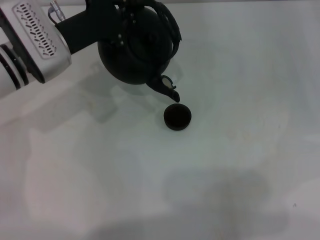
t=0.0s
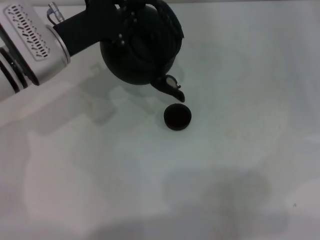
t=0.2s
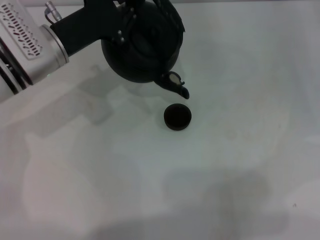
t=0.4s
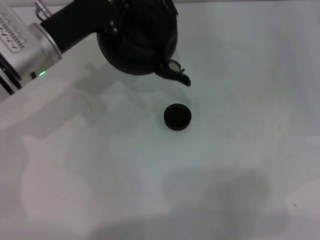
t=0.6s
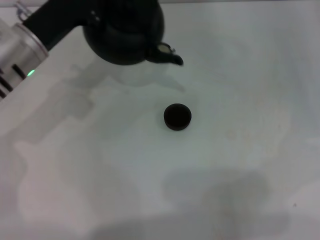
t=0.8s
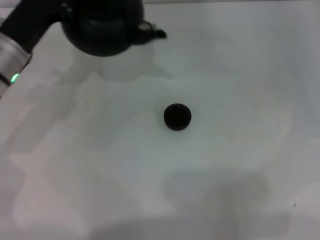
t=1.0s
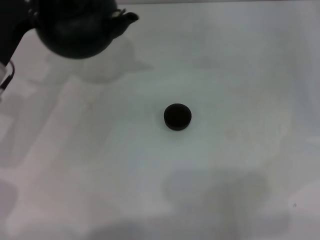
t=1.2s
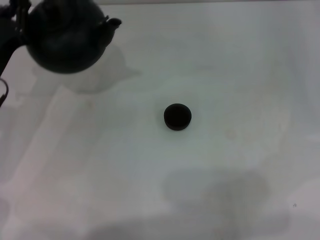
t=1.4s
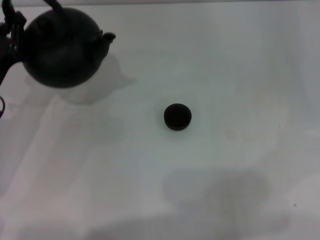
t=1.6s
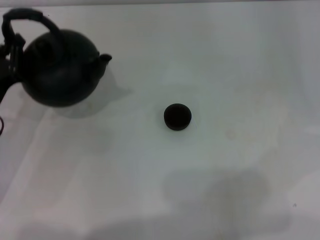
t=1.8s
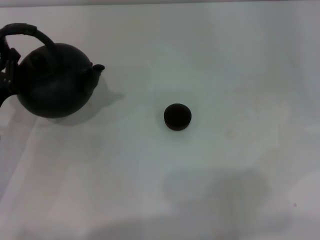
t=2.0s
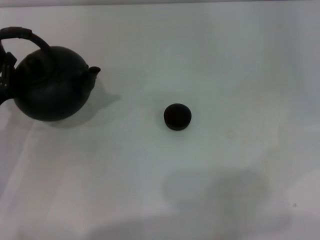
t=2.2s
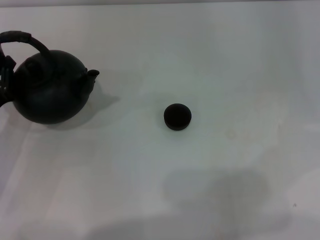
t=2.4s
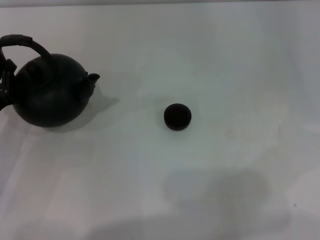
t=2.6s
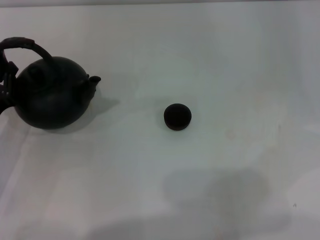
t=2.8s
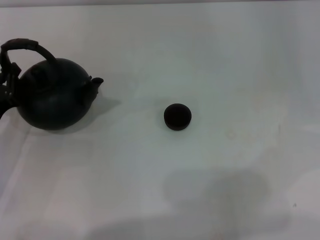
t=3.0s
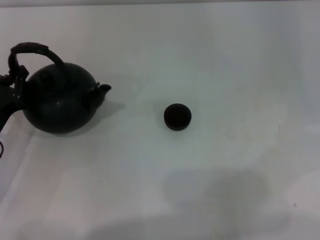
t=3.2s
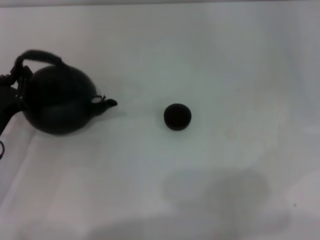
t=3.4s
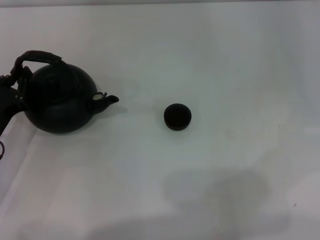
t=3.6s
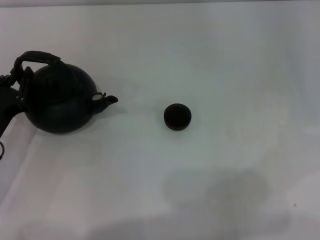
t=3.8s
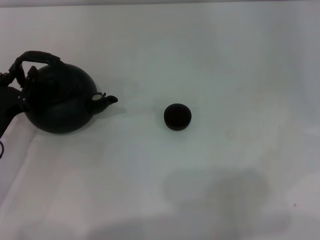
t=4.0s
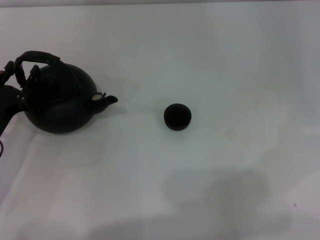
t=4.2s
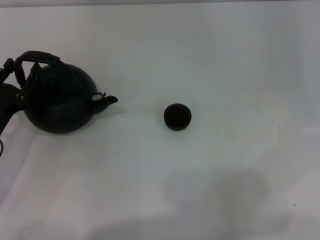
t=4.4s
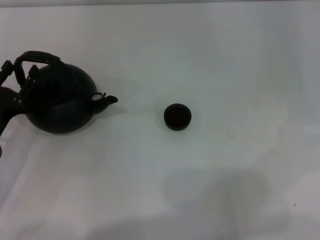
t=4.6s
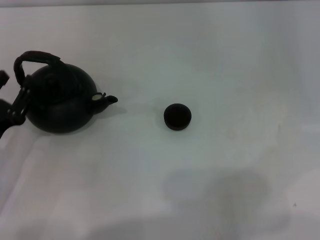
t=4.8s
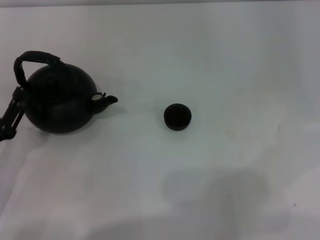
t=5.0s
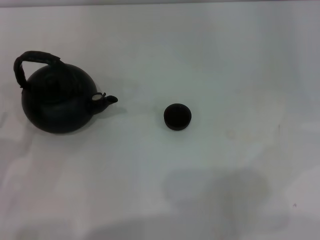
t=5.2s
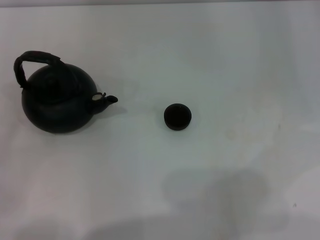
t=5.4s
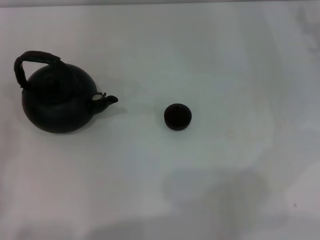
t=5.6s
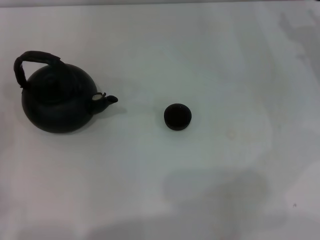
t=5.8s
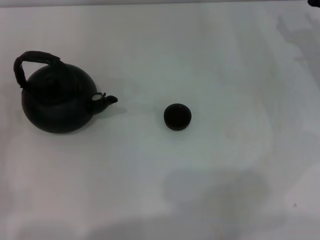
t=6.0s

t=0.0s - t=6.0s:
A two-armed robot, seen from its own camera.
Task of the whole recording: Grasp the handle of the teapot with one hand and pour tea into the teacup.
Step, t=0.4s - t=4.8s: Put down the teapot with the left gripper.
t=0.0s - t=1.6s: The left gripper travels to the left, backward and downward by some 15 cm.
t=1.6s - t=3.0s: The left gripper changes place by some 5 cm.
t=3.0s - t=4.4s: The left gripper opens up.
t=4.4s - t=6.0s: The left gripper is displaced to the left and backward by some 10 cm.

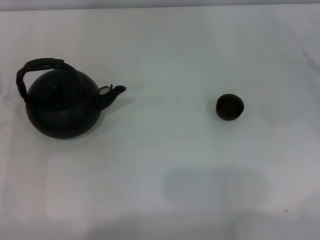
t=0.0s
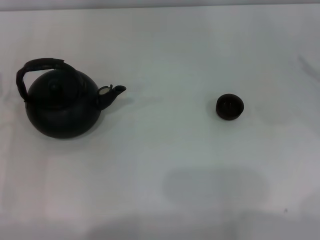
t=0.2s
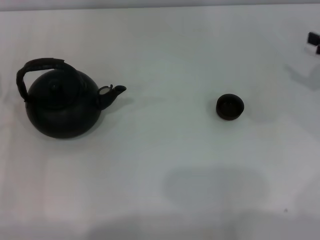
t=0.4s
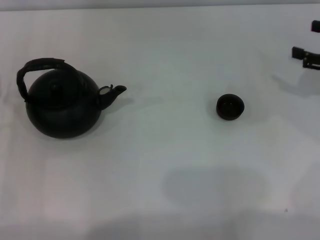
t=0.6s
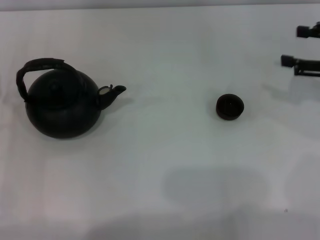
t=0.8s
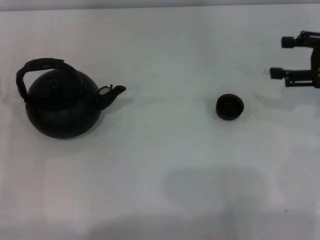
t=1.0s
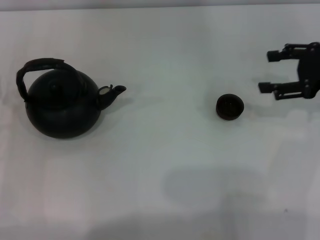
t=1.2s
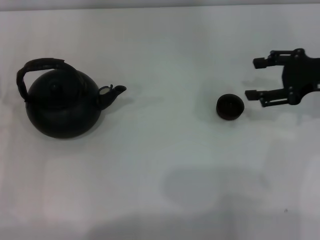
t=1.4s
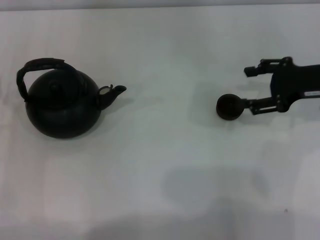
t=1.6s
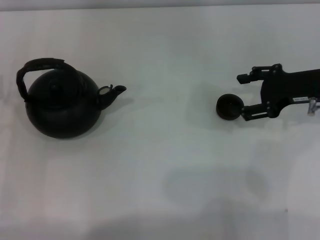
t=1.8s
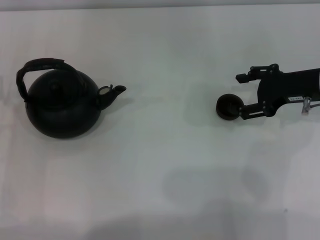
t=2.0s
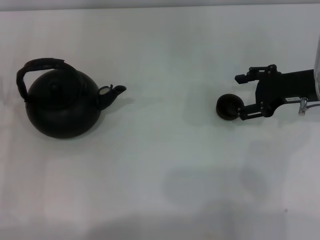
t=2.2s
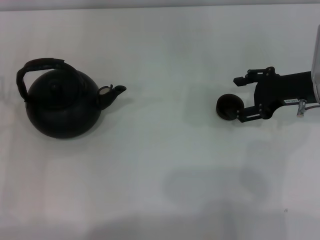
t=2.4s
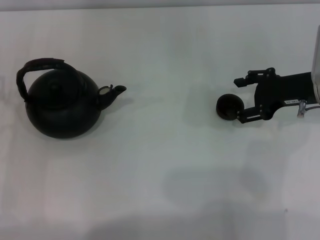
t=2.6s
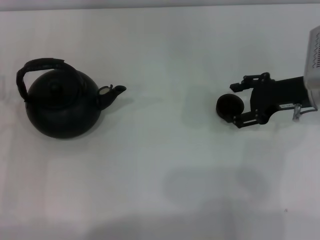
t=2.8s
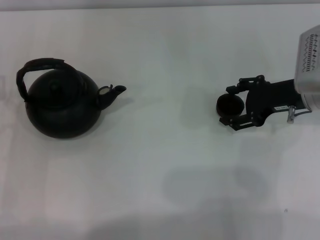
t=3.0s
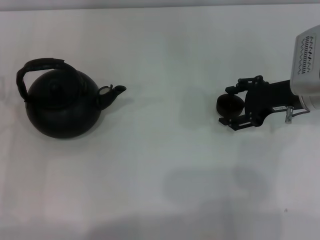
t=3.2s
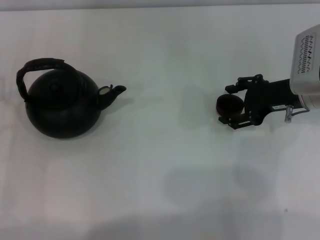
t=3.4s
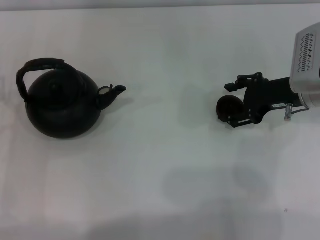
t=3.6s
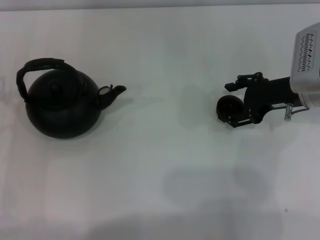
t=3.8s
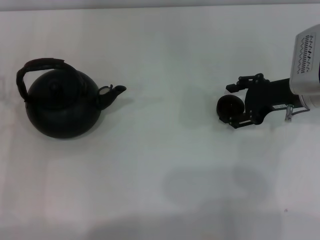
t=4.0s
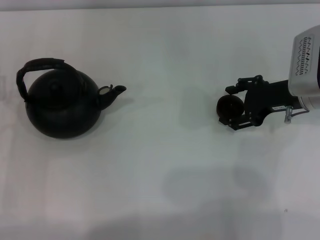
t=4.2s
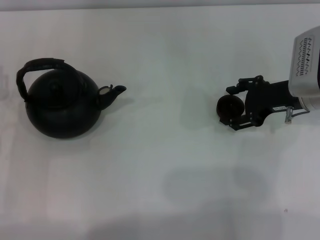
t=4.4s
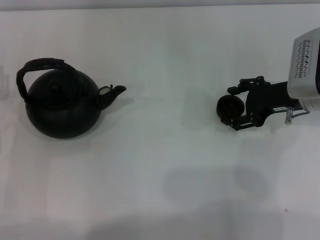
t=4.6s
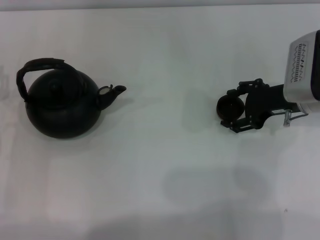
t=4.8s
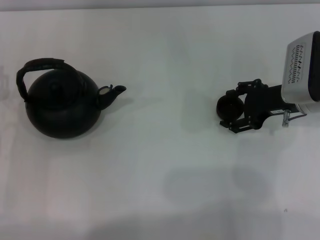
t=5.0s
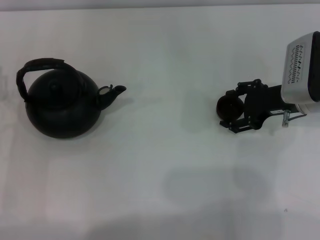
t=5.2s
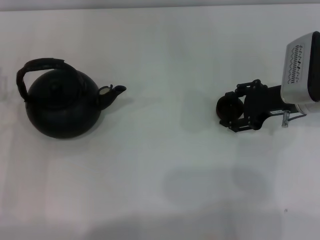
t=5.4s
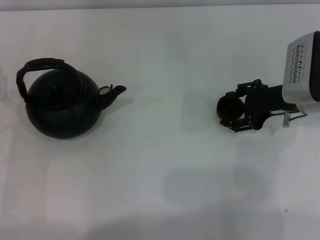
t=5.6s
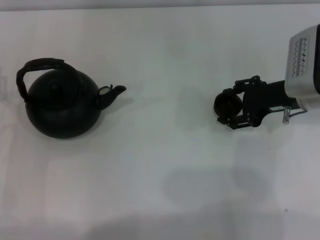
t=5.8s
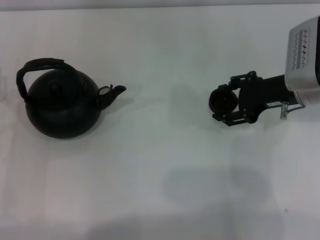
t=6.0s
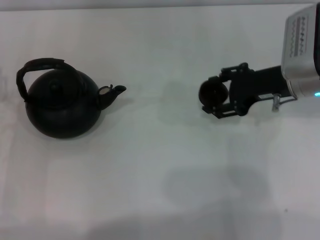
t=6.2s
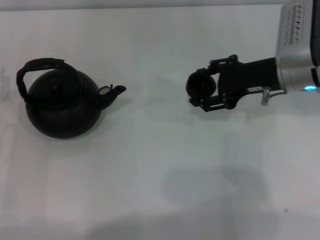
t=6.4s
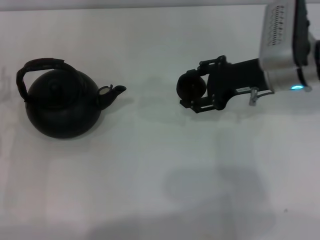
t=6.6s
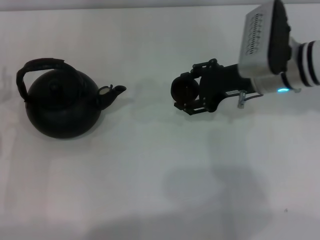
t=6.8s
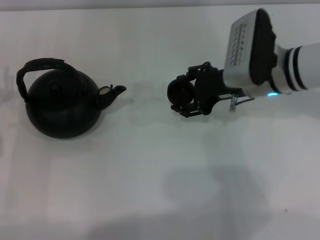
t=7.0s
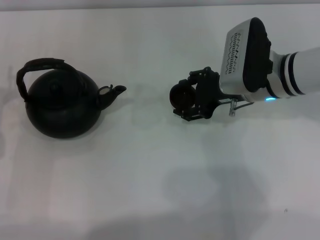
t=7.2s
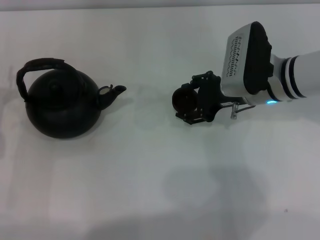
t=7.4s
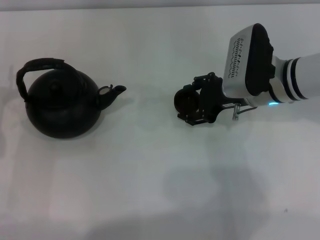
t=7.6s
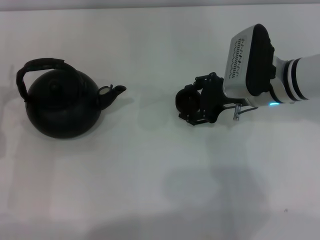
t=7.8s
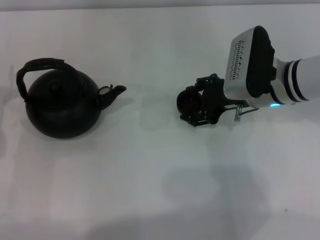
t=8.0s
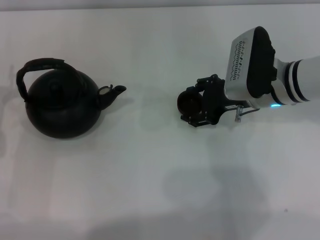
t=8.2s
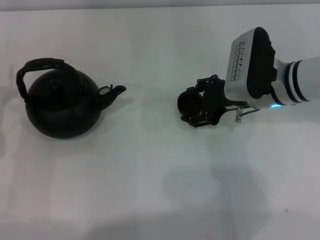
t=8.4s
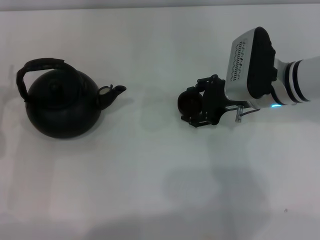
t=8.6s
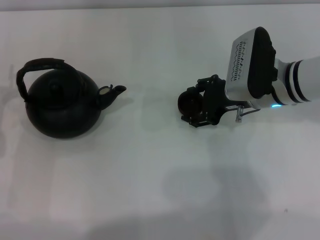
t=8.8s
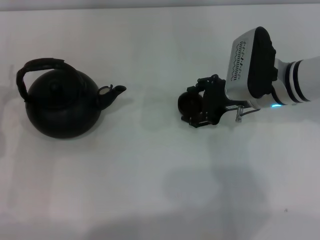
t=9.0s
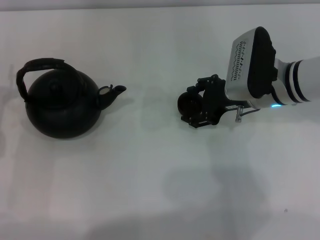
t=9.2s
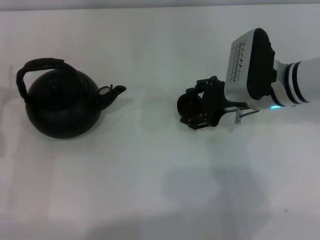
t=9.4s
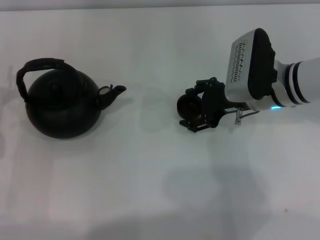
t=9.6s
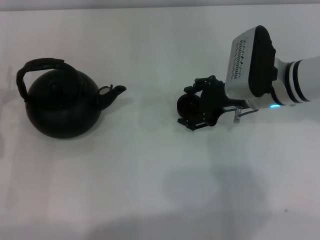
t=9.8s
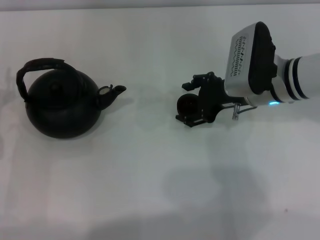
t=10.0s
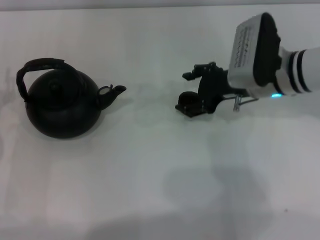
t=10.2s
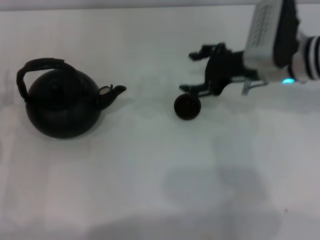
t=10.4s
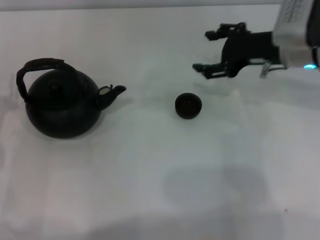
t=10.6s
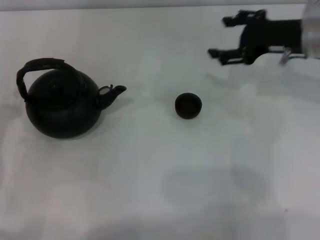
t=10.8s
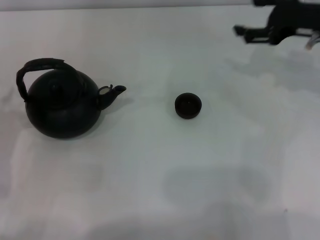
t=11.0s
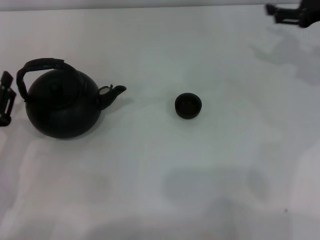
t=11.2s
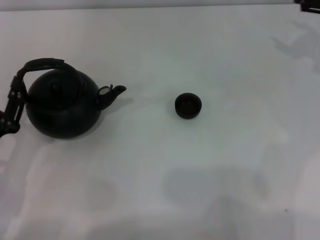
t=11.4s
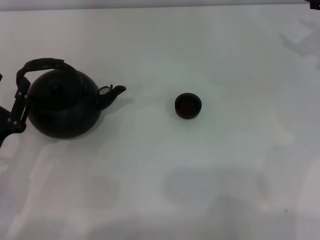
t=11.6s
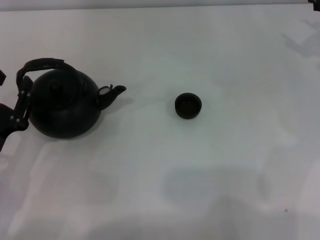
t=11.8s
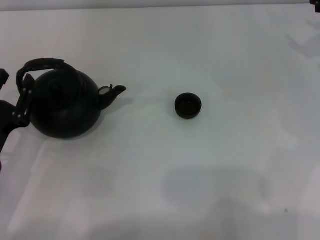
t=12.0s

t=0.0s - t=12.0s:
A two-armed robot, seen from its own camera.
Task of the whole recording: Grasp the handle of the teapot with one hand and pour tea into the teacup.
Step, t=0.0s - t=5.8s: Pick up the teacup with the right gripper.
Step, t=6.0s - t=10.4s: Place the teacup in the center of view with the right gripper.
t=0.0s - t=1.6s: The right gripper travels to the left by roughly 10 cm.
t=1.6s - t=3.0s: The right gripper ends up about 5 cm from where it was.
t=3.0s - t=4.4s: Both grippers stay put.
t=4.4s - t=6.0s: The grippers make only small movements.
t=6.0s - t=7.6s: The right gripper moves to the left, roughly 5 cm.
t=7.6s - t=9.0s: Neither gripper changes place.
t=9.0s - t=10.4s: The grippers make only small movements.
t=10.4s - t=12.0s: The right gripper travels to the right by approximately 20 cm; the left gripper is displaced backward by about 5 cm.

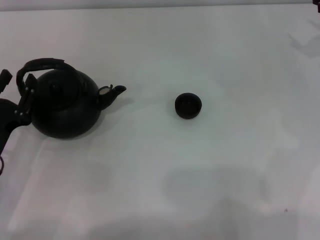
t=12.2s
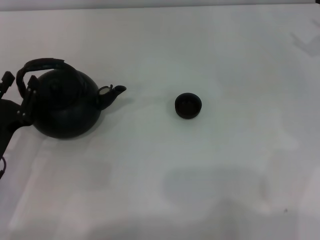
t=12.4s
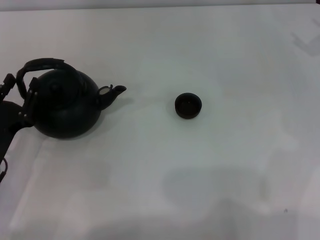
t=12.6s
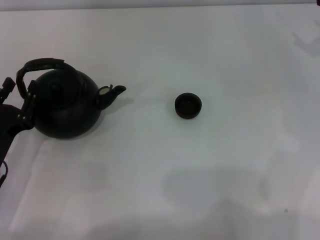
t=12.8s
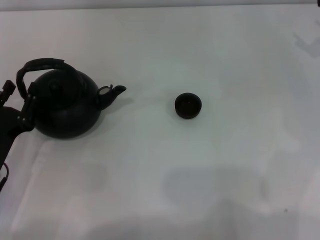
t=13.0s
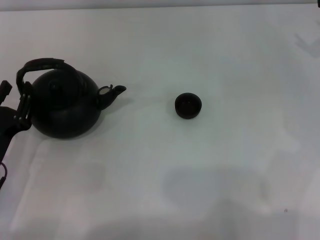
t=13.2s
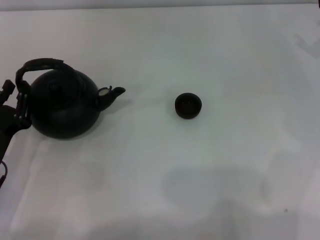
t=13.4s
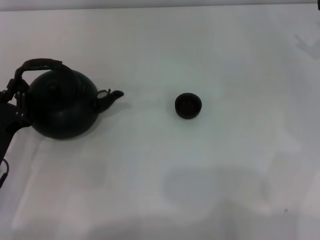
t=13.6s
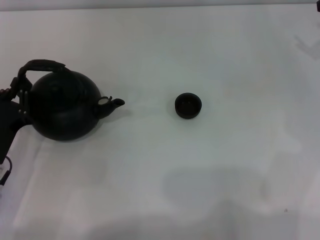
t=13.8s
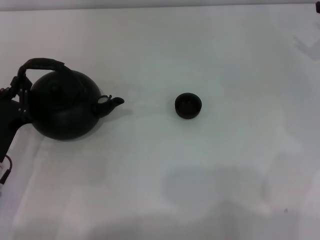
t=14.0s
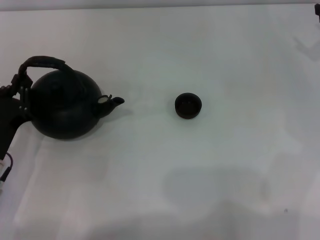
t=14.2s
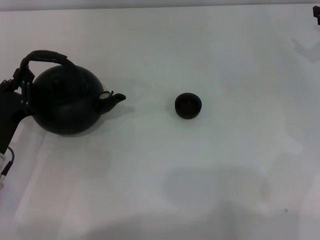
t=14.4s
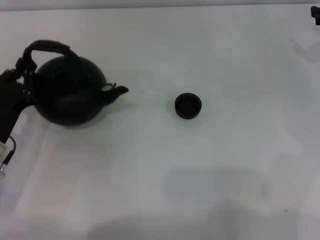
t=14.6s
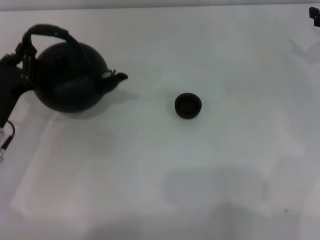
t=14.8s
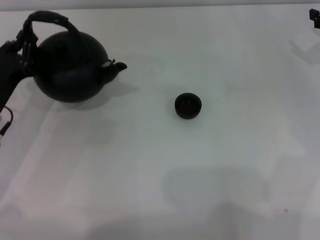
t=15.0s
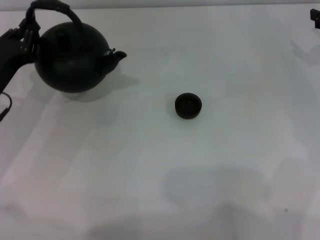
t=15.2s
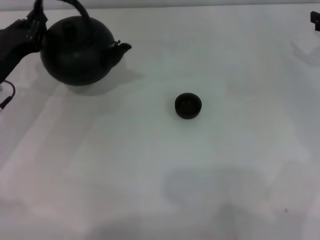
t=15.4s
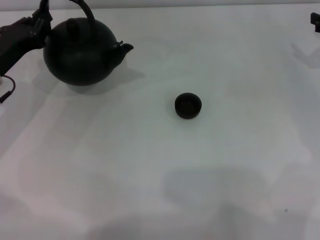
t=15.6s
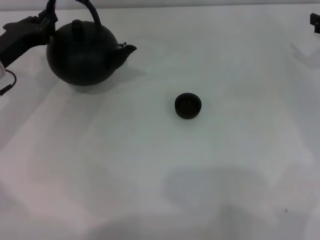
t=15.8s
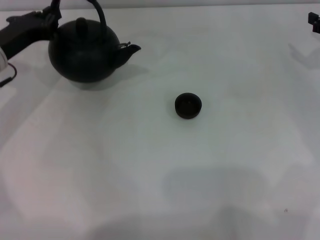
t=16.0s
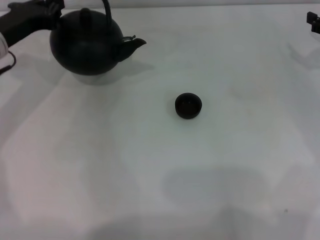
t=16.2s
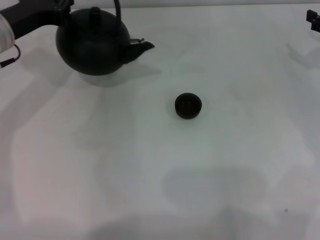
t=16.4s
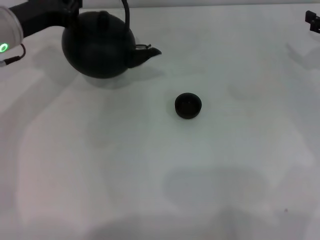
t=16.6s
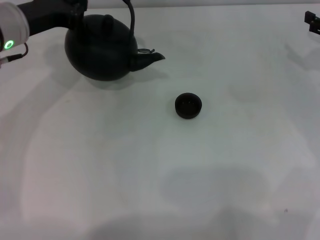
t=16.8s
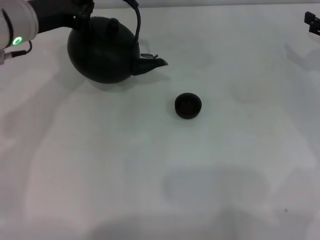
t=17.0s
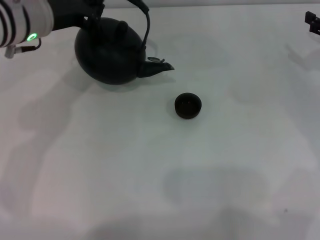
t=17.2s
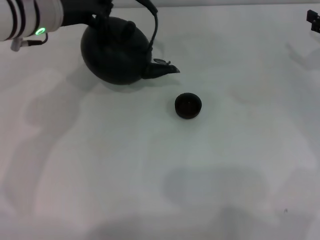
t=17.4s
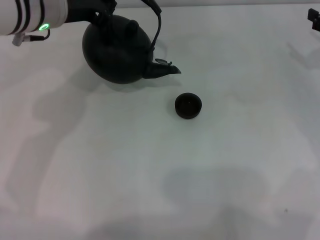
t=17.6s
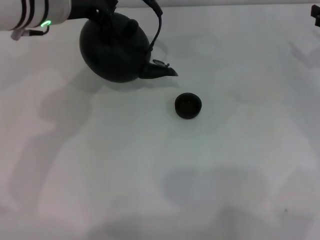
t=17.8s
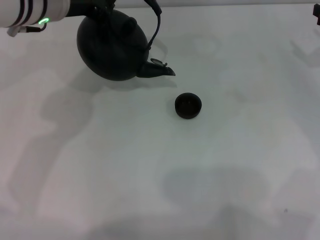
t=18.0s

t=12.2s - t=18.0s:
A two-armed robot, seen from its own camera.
Task of the whole recording: Grasp the handle of the teapot with one hand and pour tea into the teacup.
Step, t=12.2s - t=17.0s: Pick up the teapot with the left gripper.
t=12.2s - t=13.6s: The grippers stay close to where they were, moving slightly.
t=13.6s - t=15.0s: The left gripper is displaced forward by some 5 cm, and closes up.
t=15.0s - t=16.6s: The left gripper moves upward and forward, approximately 15 cm.
t=16.6s - t=18.0s: The left gripper shifts some 10 cm to the right and upward.
